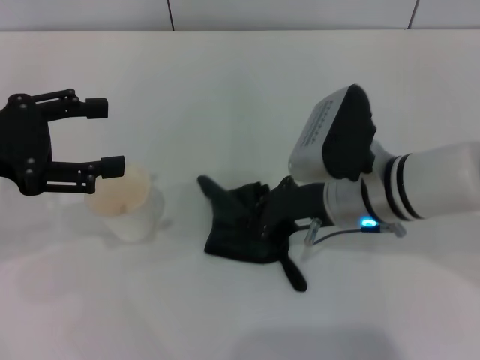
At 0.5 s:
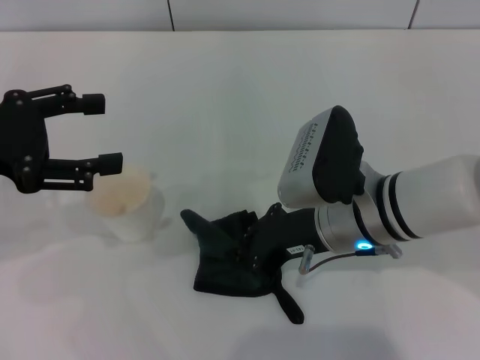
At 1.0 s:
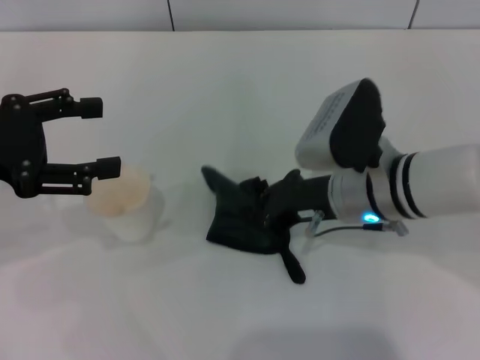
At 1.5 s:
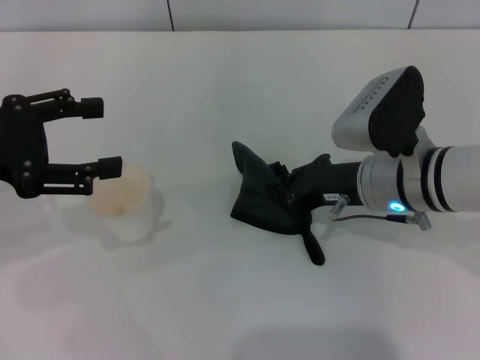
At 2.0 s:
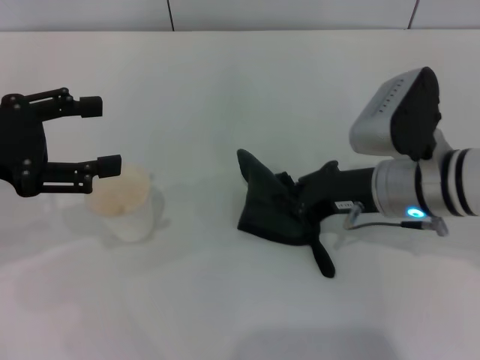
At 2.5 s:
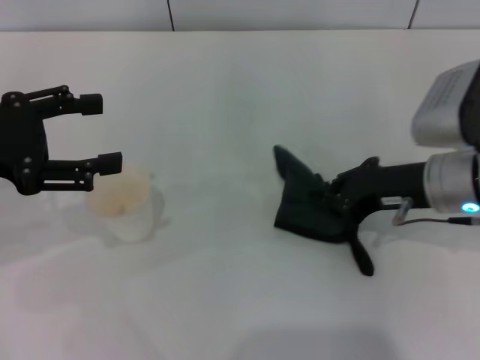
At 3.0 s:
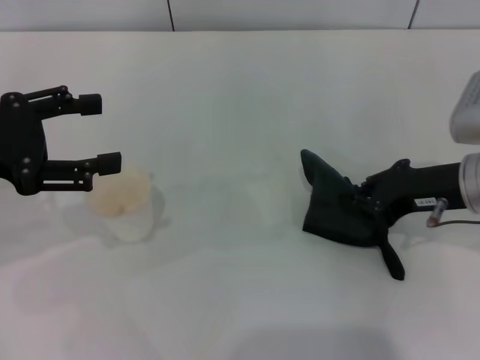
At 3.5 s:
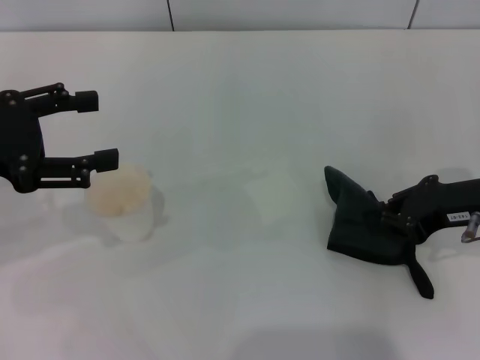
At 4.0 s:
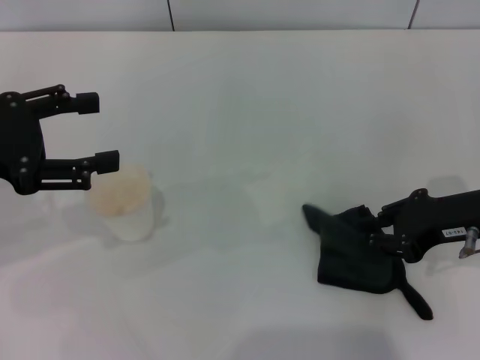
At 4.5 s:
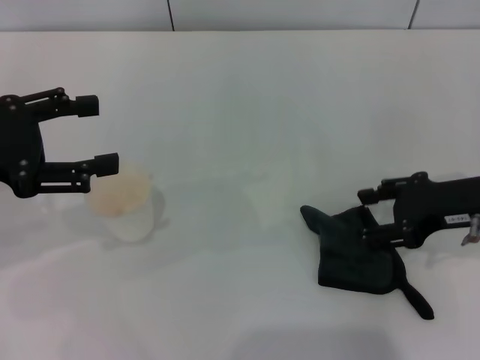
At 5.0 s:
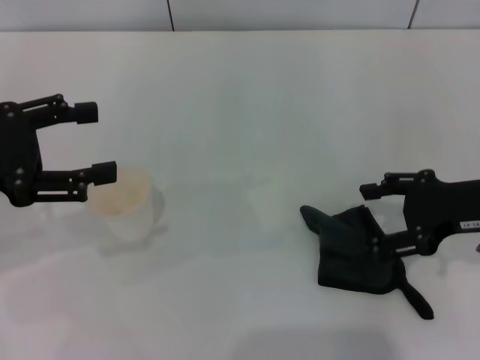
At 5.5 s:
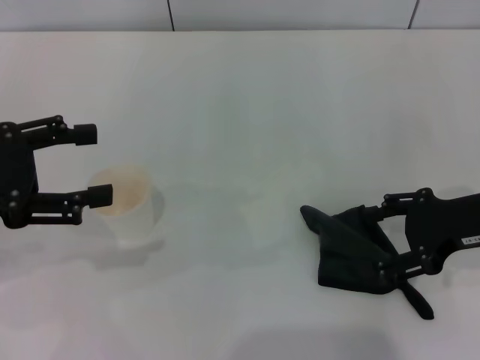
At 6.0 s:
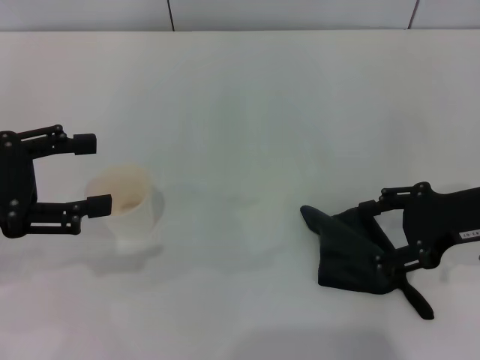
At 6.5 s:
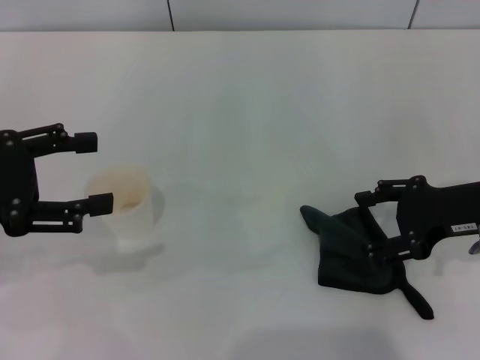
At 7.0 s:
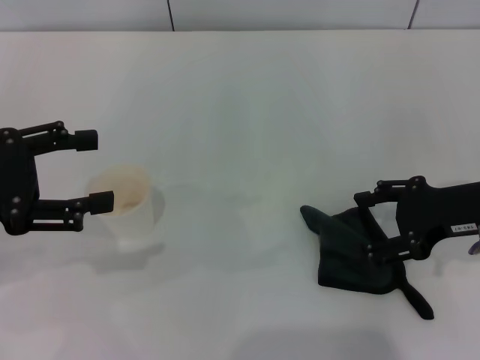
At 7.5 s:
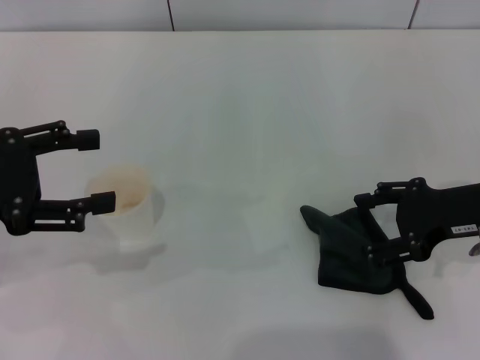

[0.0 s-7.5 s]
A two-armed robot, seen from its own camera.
Step, 2.0 to 6.0 s: Place the rag on the table with the right gripper.
0.0 to 2.0 s: The grippers move only a little.
2.0 to 4.0 s: The right gripper heads to the right, covering roughly 10 cm.
4.0 to 5.5 s: The right gripper opens up.
5.5 to 7.5 s: The two grippers keep their place.

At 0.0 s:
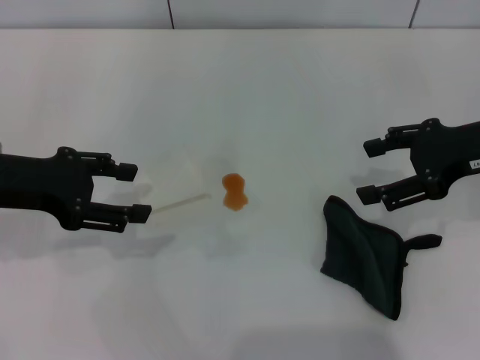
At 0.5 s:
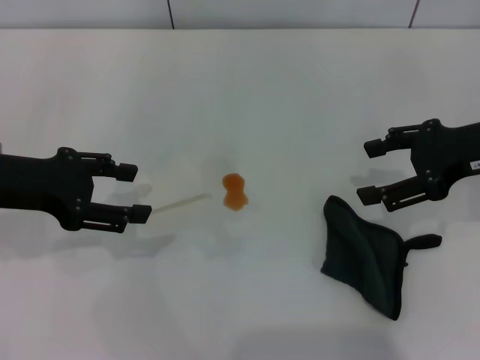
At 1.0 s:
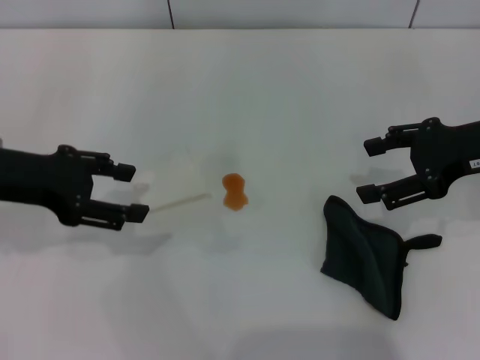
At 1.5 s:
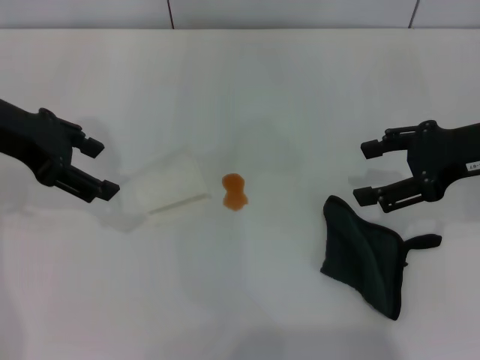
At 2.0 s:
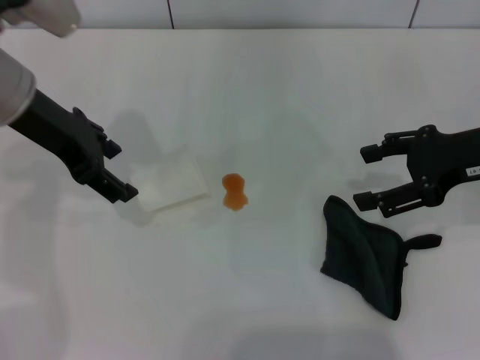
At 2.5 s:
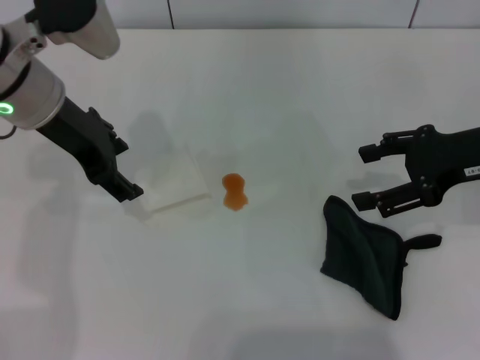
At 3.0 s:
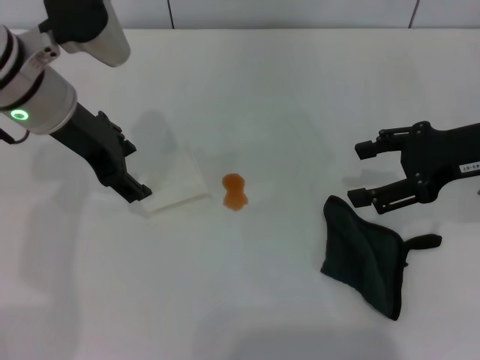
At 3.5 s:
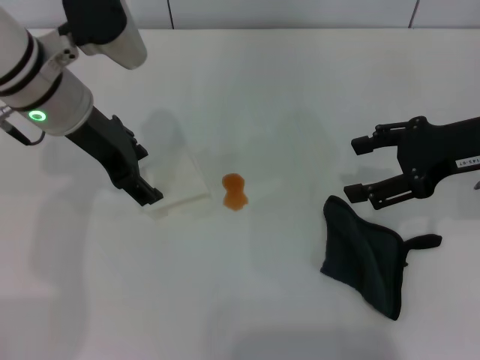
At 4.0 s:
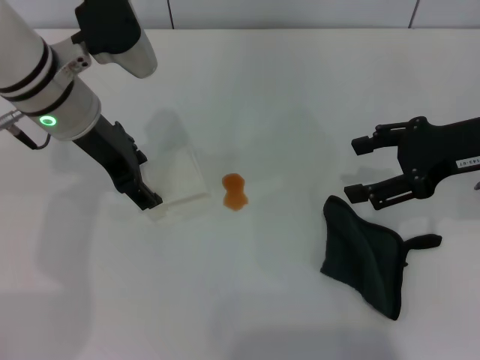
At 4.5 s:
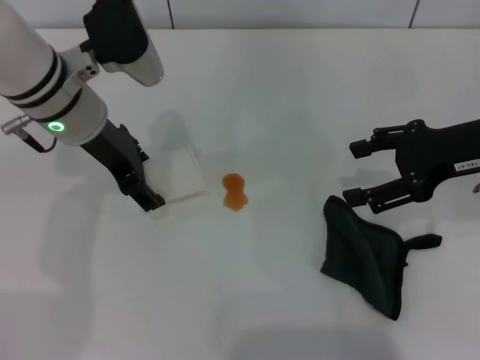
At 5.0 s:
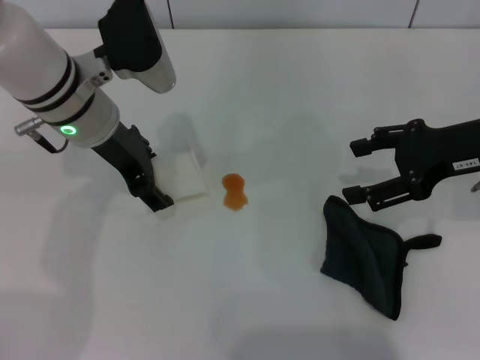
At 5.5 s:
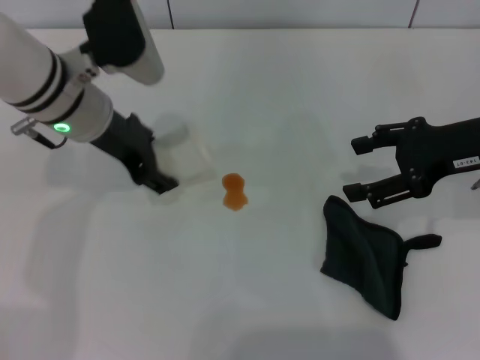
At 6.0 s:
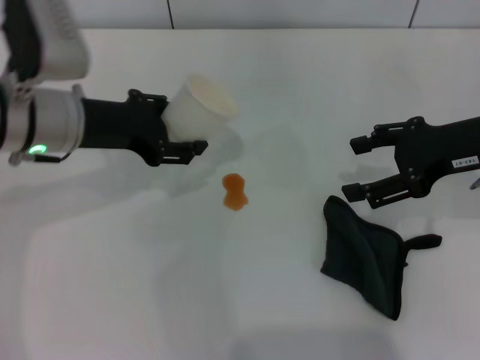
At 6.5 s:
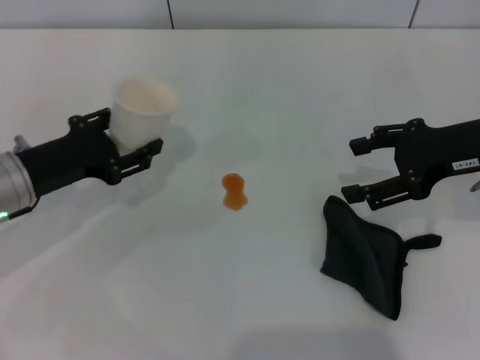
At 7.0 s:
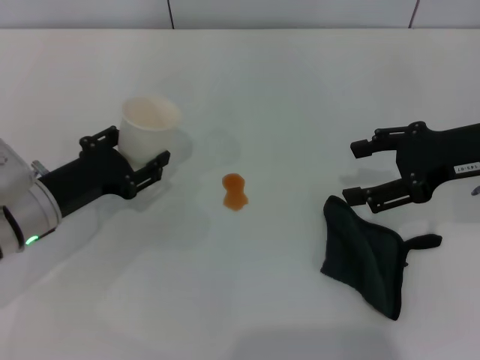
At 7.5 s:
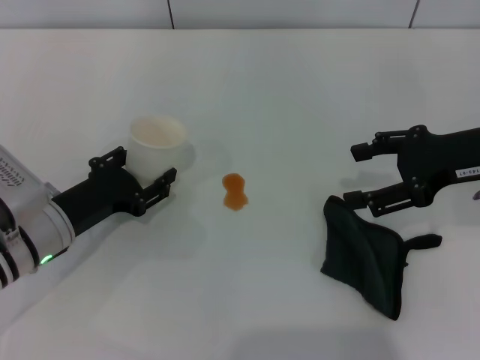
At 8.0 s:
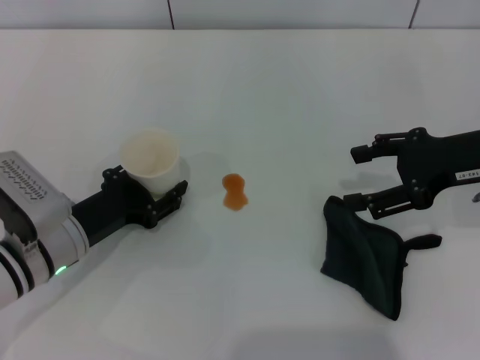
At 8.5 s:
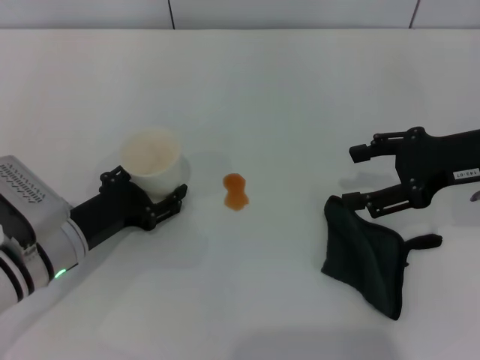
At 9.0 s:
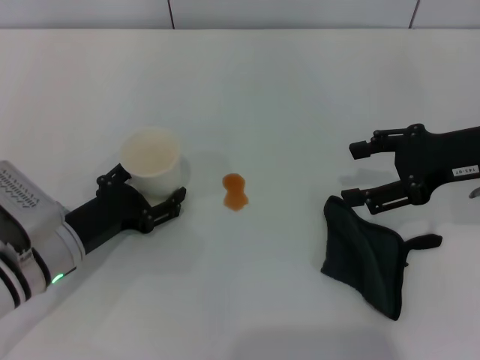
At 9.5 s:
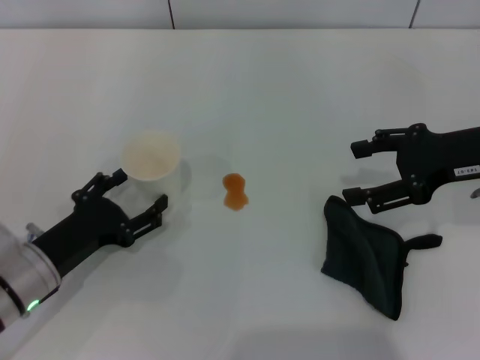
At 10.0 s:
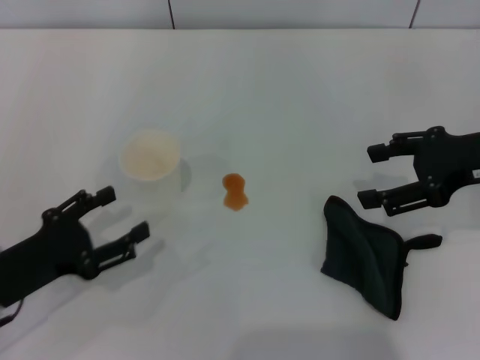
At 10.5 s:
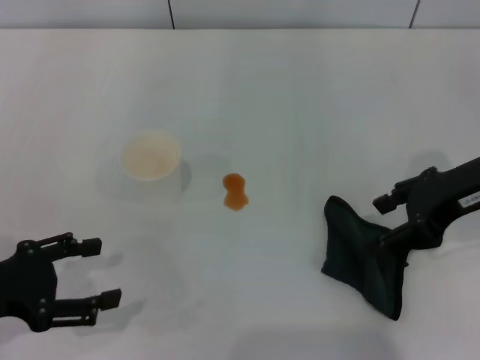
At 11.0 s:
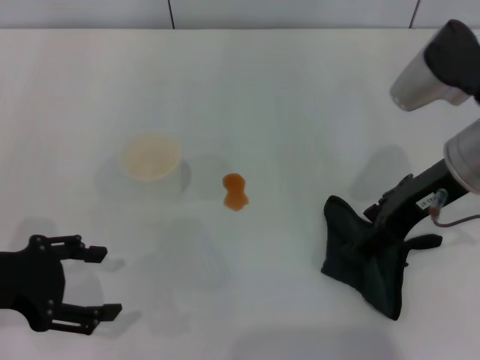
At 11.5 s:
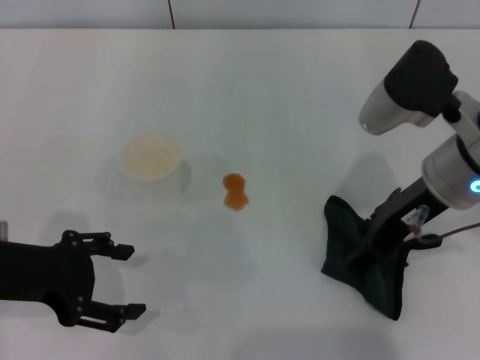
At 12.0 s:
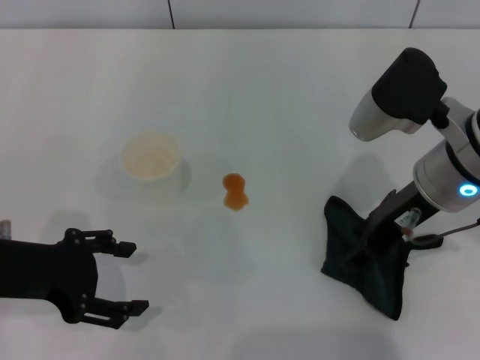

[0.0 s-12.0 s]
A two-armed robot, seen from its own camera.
Step, 0.0 to 4.0 s: Grasp the paper cup with the left gripper.
Step, 4.5 to 9.5 s: Stand the paper cup upright with the left gripper.
0.0 to 2.0 s: The left gripper is displaced forward, to the right and upward by some 10 cm, and opens.
2.0 to 4.0 s: The left gripper changes place by about 5 cm.
4.0 to 6.0 s: The left gripper closes.
6.0 to 8.0 s: The left gripper goes approximately 15 cm downward and backward.
8.0 to 10.0 s: The left gripper heads backward and to the left, covering about 10 cm, and opens its fingers.
10.0 to 12.0 s: The left gripper is displaced upward by about 10 cm; the right gripper is displaced to the left by approximately 10 cm.

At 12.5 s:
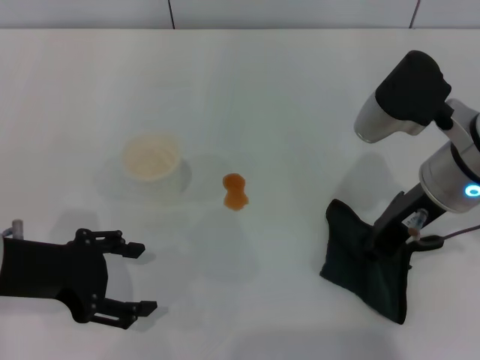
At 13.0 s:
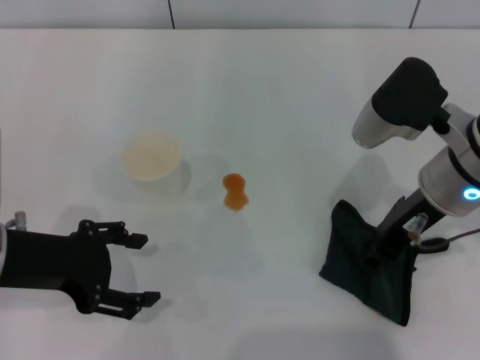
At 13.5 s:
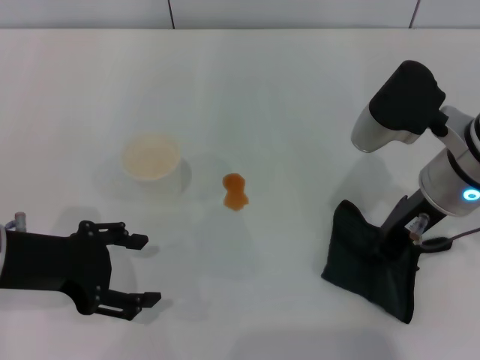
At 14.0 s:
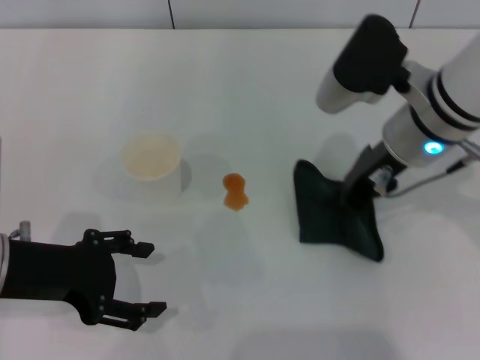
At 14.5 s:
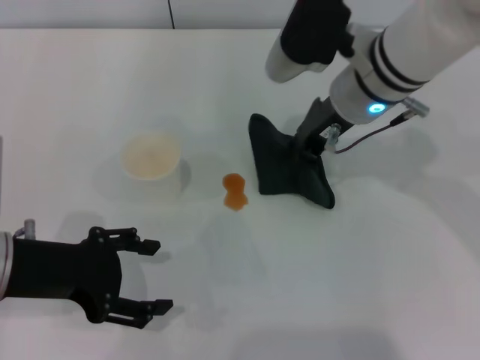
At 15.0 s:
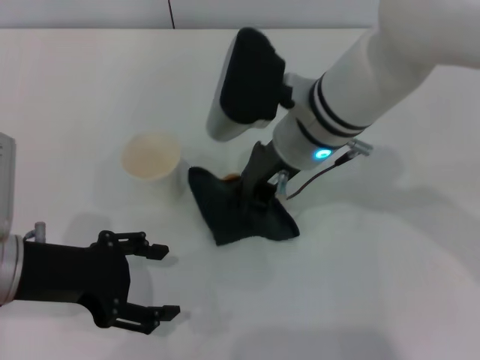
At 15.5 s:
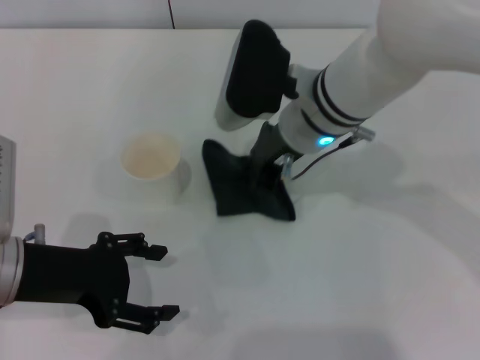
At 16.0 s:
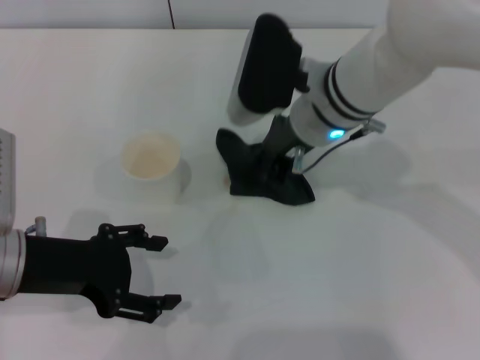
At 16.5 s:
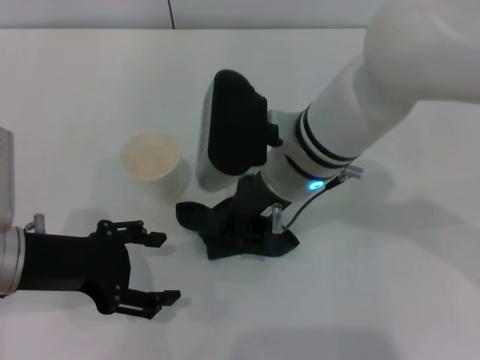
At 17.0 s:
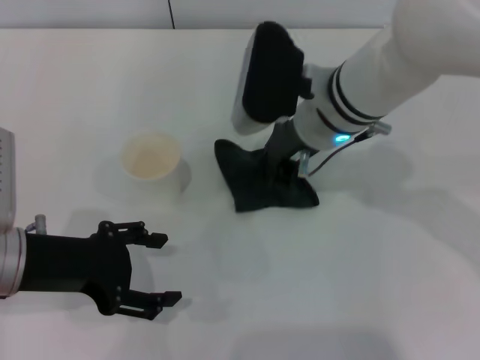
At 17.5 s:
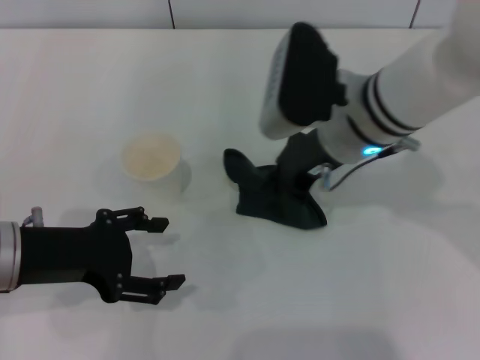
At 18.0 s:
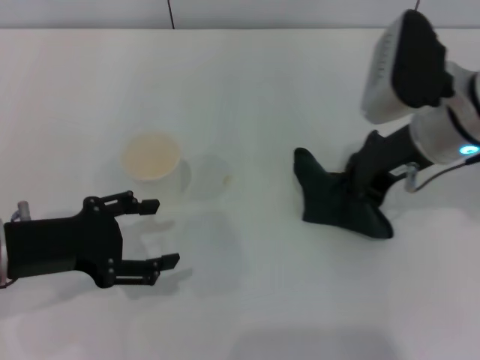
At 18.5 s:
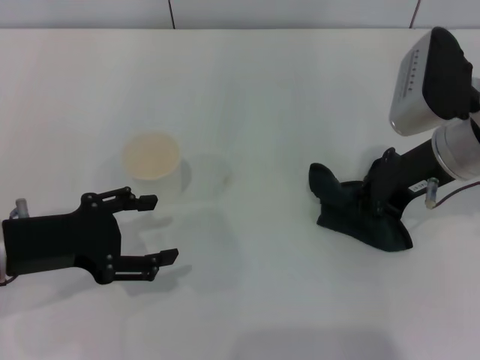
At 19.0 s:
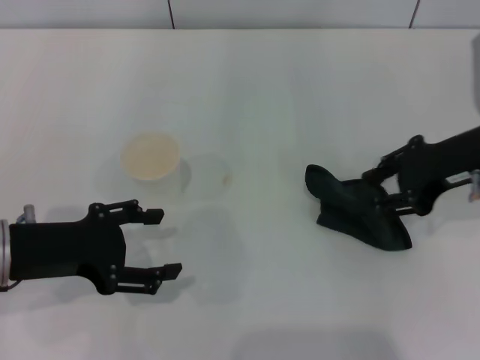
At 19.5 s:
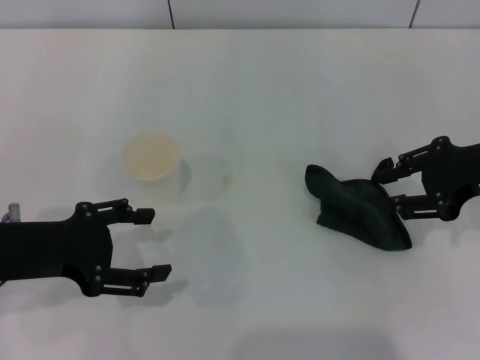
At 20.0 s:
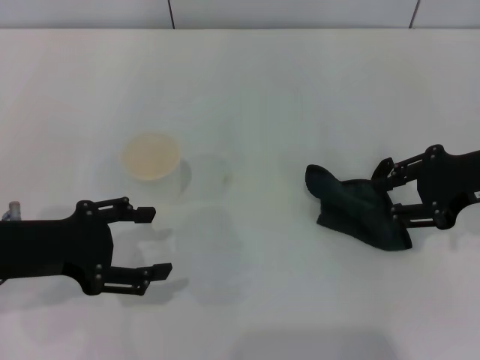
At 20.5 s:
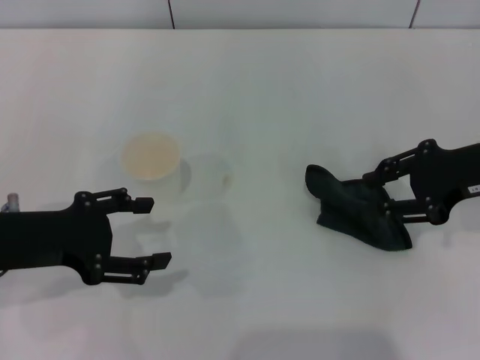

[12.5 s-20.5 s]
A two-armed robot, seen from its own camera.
Step, 13.0 to 17.5 s: Wipe the stains off the table with the right gripper.
Step, 18.0 to 19.5 s: Place the rag on the table with the right gripper.
12.5 to 14.5 s: The right gripper is displaced forward and to the left by some 10 cm.
14.5 to 16.5 s: The right gripper goes roughly 10 cm to the left and backward.
16.5 to 18.5 s: The right gripper moves to the right, approximately 15 cm.
18.5 to 20.5 s: The right gripper goes some 5 cm to the right, and opens up.
